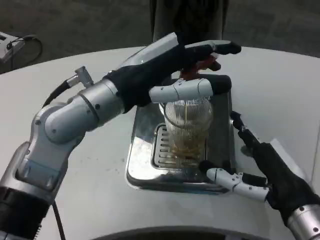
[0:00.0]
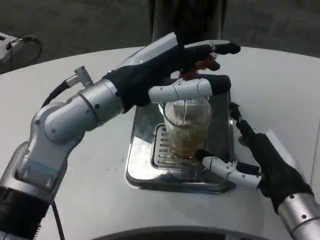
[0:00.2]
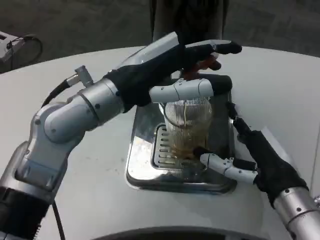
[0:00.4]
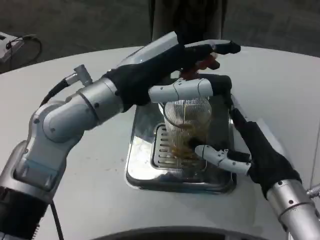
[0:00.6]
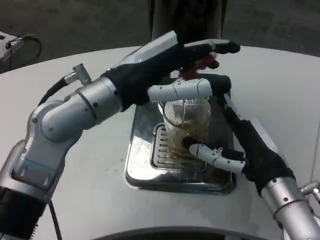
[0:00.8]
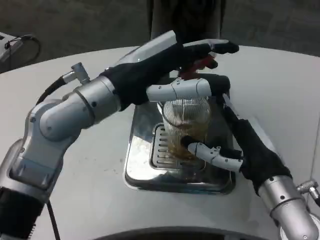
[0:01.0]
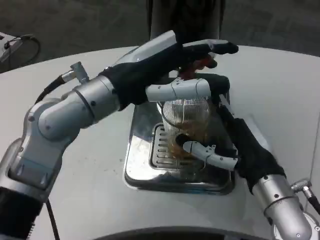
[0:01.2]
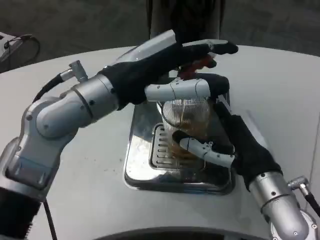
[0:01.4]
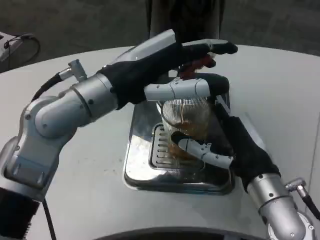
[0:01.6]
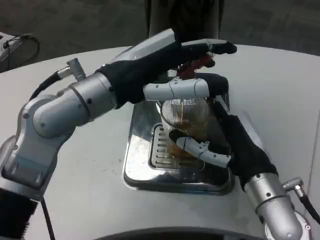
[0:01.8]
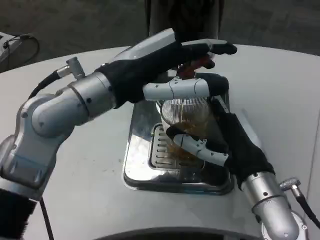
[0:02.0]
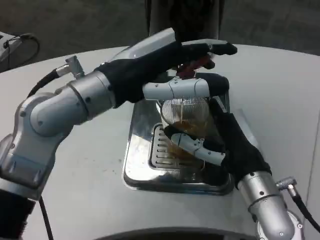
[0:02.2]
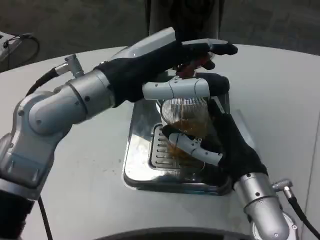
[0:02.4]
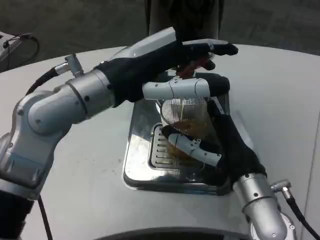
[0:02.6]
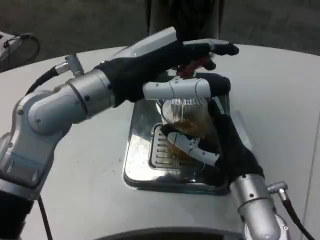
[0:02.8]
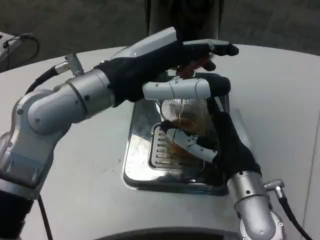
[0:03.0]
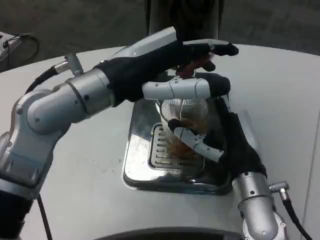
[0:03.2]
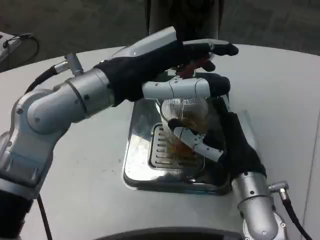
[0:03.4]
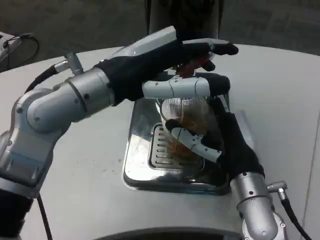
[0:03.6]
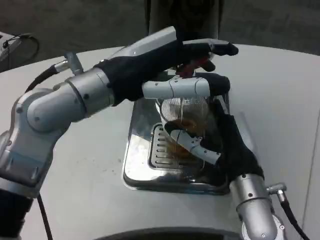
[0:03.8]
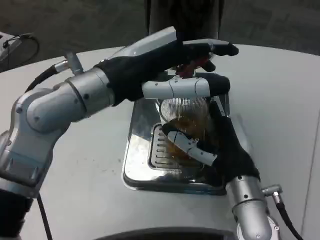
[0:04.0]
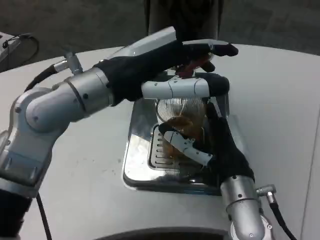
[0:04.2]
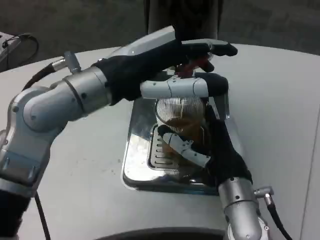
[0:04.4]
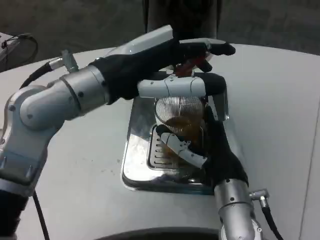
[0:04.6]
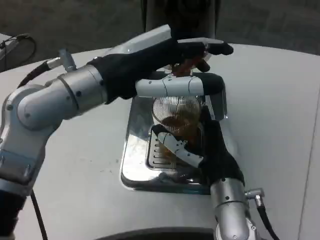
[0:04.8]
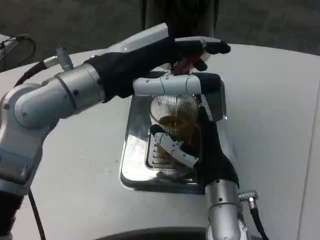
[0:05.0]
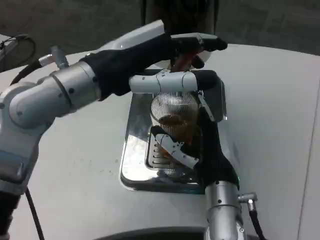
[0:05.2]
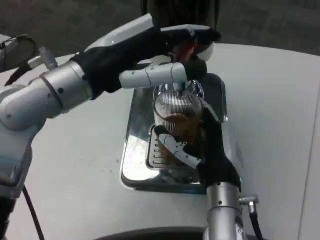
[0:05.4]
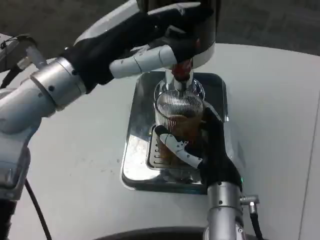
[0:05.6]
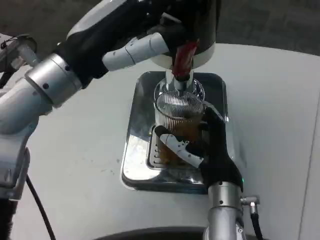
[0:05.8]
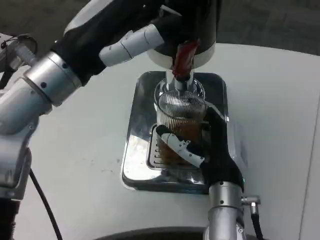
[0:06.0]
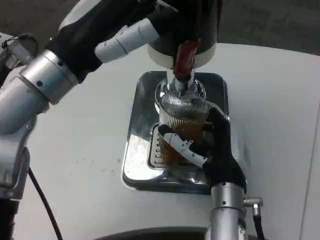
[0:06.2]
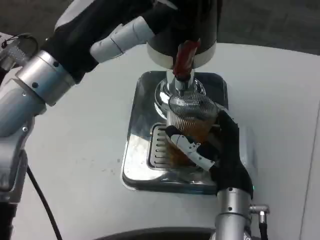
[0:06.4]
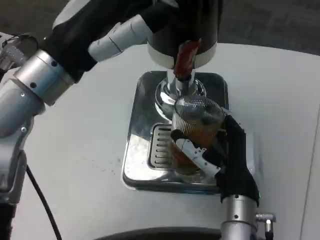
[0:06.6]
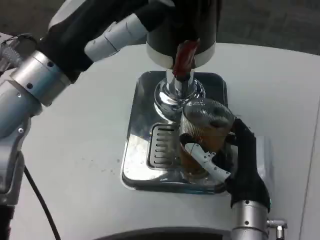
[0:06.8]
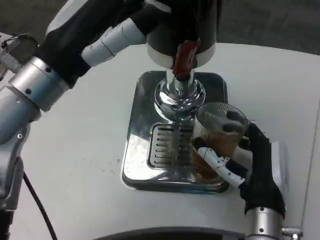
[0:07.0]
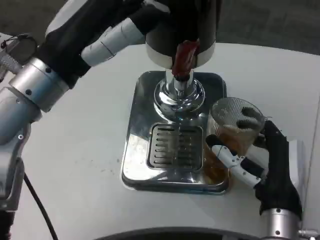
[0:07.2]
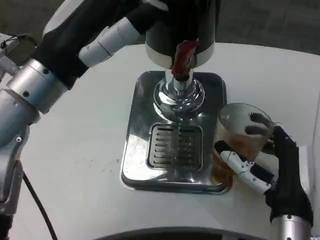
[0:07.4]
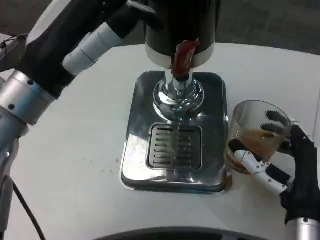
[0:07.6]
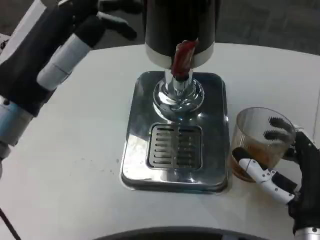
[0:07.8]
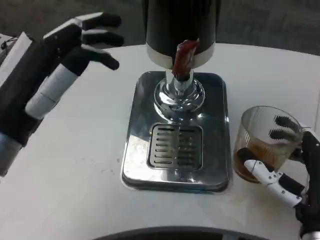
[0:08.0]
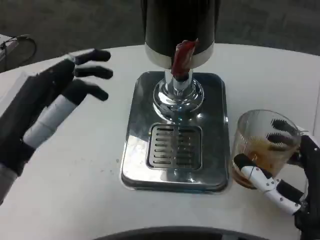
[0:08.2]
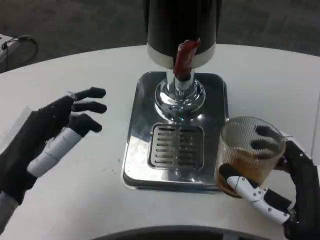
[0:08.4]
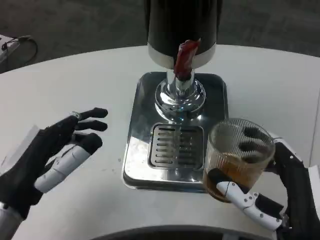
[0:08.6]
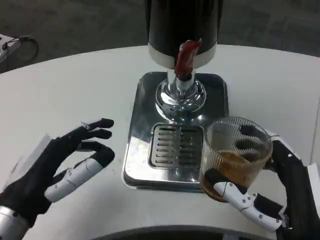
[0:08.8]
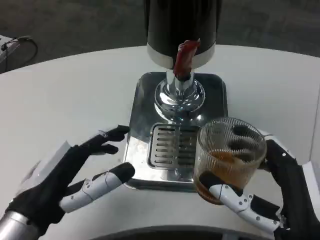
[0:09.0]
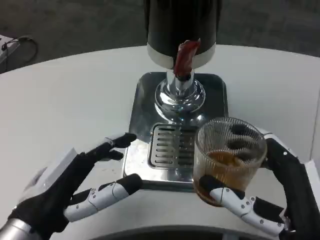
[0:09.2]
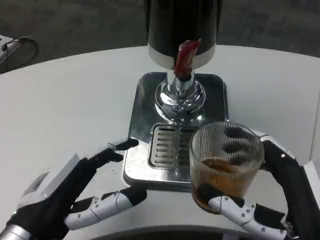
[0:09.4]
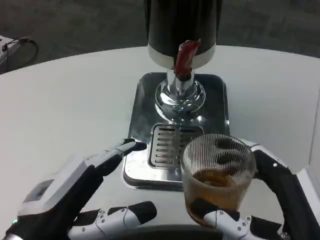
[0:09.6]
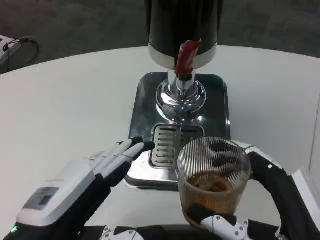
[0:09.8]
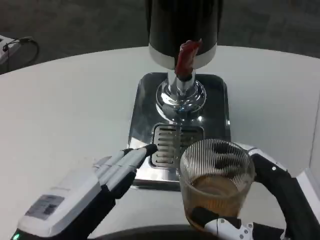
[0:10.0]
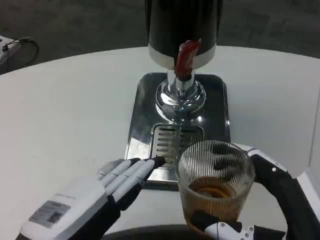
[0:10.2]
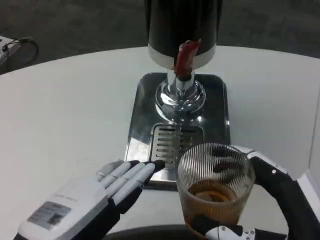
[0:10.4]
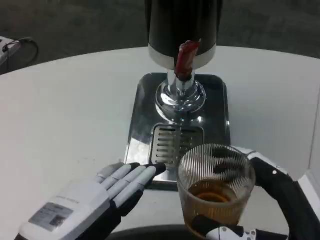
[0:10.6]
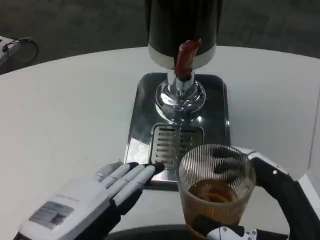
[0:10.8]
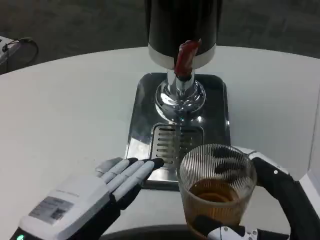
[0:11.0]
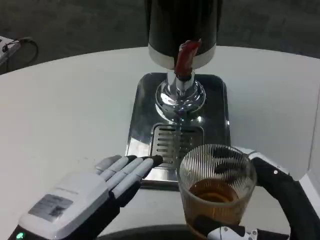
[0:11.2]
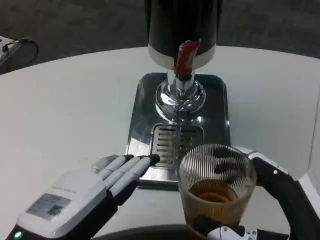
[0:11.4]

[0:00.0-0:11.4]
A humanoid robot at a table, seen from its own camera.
Task of the whole recording: Grasp the cup under the faucet to collect the drink, then remove the cup.
0:00.0 to 0:01.4: The right hand heads forward, covering roughly 5 cm.
0:02.8 to 0:04.2: The hands move only a little.
0:05.6 to 0:07.2: The right hand goes about 5 cm to the right.
0:07.2 to 0:08.6: The right hand is displaced backward by some 10 cm. Meanwhile the left hand heads downward and backward, covering roughly 15 cm.
0:08.6 to 0:10.0: The left hand shifts approximately 5 cm backward.
0:10.0 to 0:11.4: There are only small adjustments of the hands.

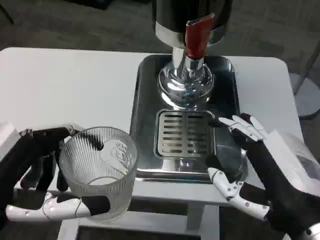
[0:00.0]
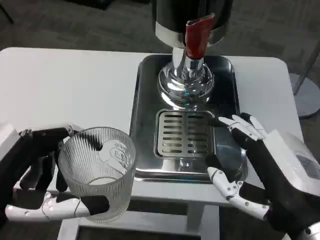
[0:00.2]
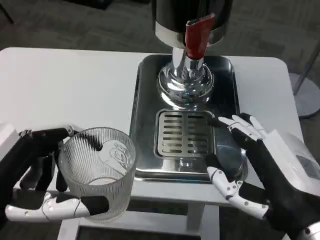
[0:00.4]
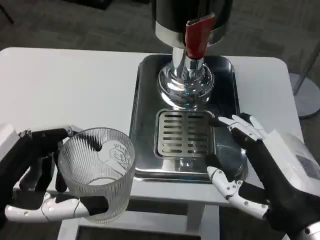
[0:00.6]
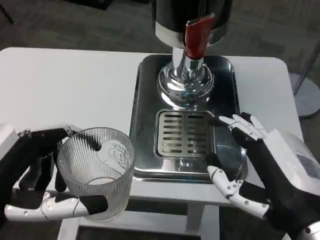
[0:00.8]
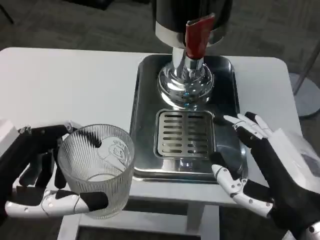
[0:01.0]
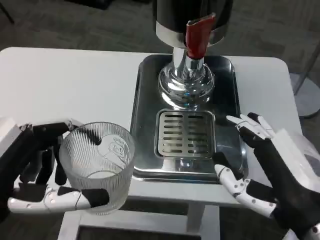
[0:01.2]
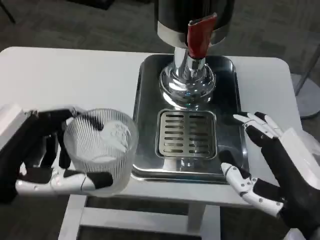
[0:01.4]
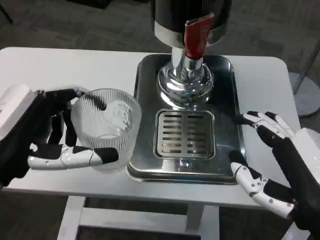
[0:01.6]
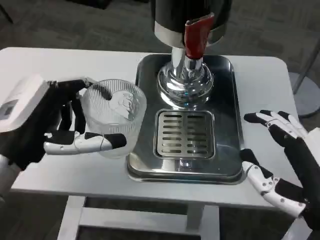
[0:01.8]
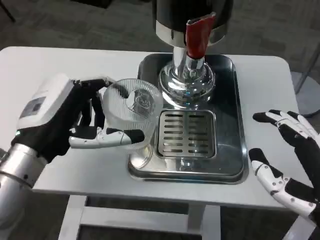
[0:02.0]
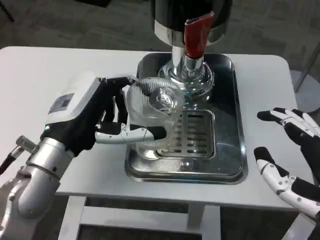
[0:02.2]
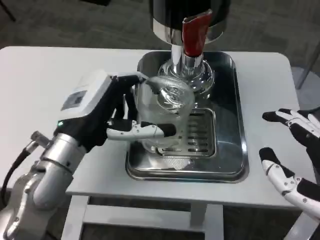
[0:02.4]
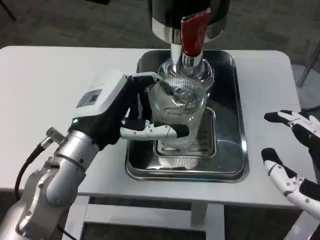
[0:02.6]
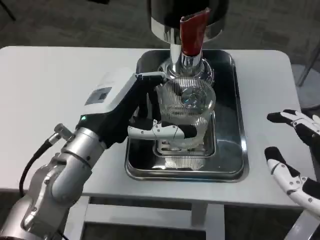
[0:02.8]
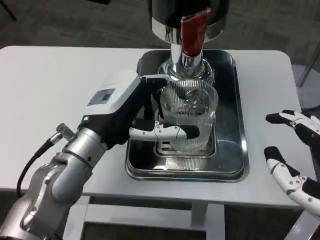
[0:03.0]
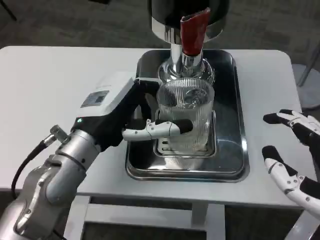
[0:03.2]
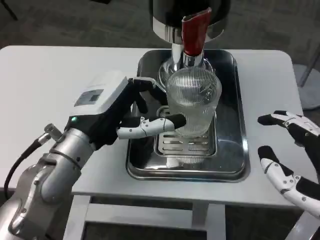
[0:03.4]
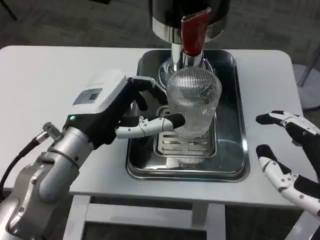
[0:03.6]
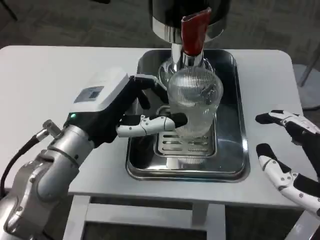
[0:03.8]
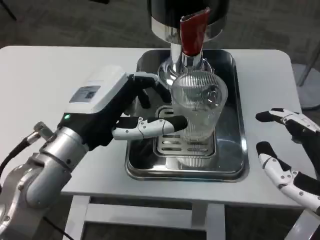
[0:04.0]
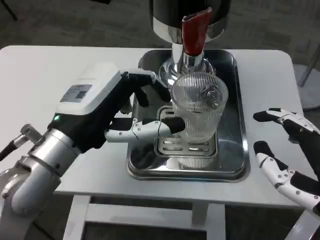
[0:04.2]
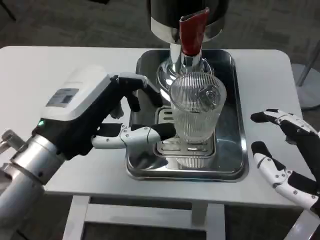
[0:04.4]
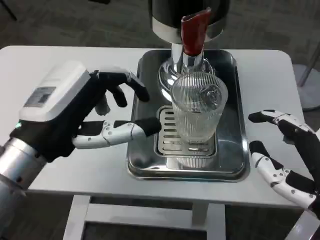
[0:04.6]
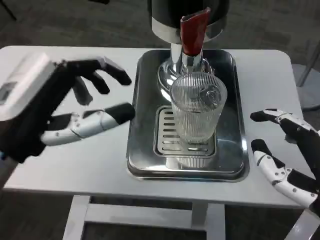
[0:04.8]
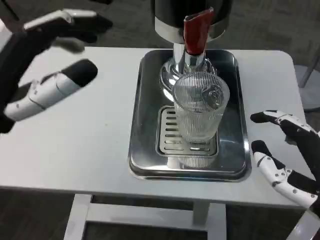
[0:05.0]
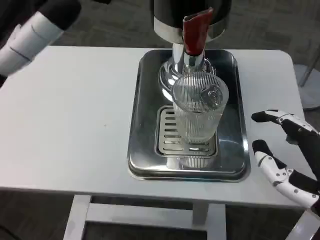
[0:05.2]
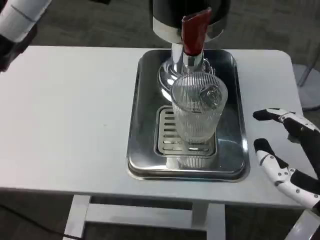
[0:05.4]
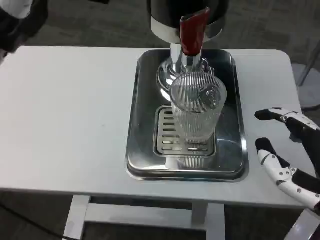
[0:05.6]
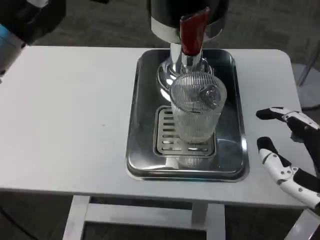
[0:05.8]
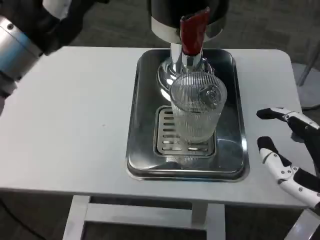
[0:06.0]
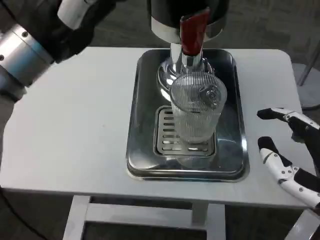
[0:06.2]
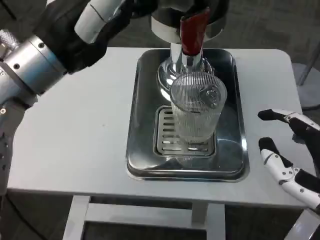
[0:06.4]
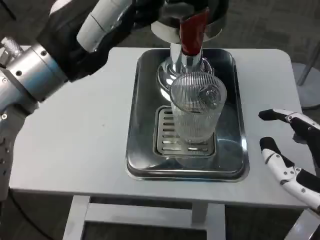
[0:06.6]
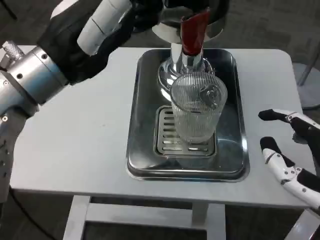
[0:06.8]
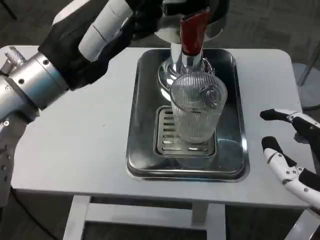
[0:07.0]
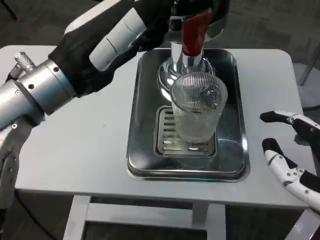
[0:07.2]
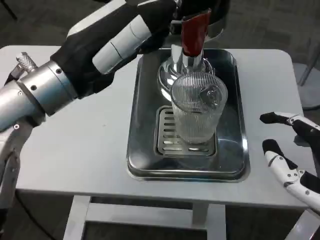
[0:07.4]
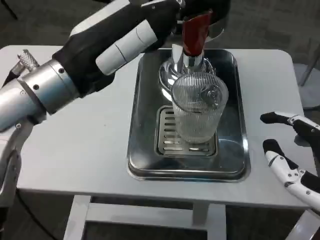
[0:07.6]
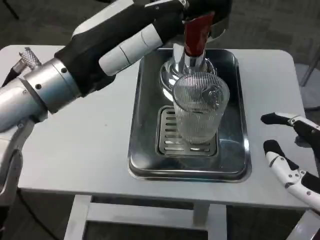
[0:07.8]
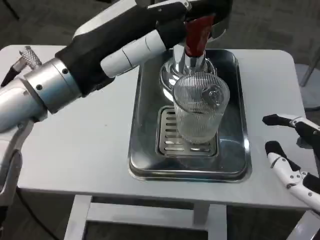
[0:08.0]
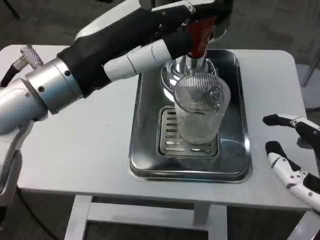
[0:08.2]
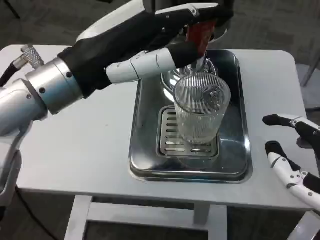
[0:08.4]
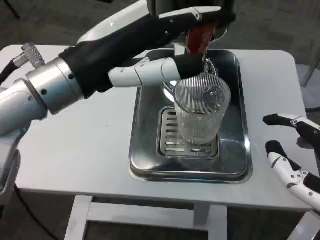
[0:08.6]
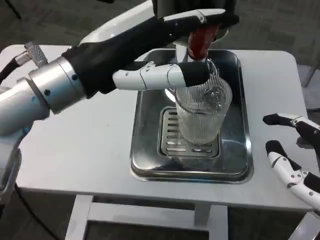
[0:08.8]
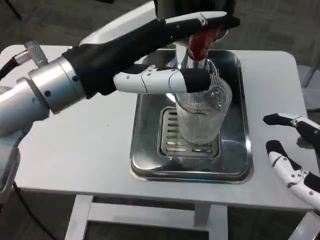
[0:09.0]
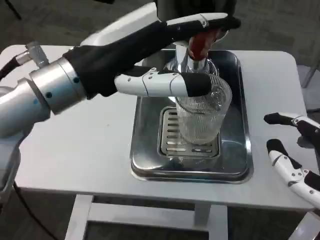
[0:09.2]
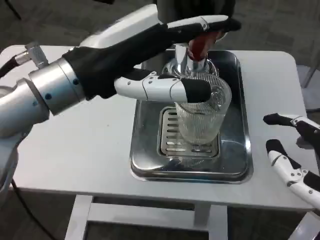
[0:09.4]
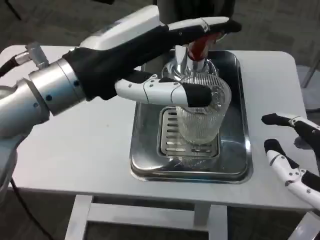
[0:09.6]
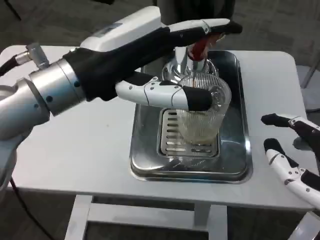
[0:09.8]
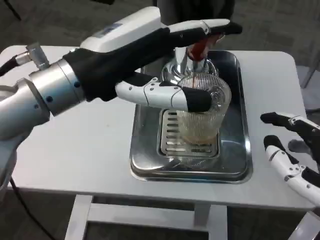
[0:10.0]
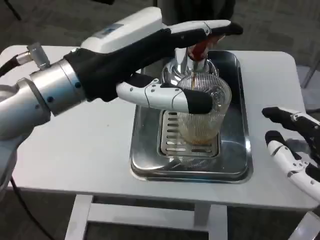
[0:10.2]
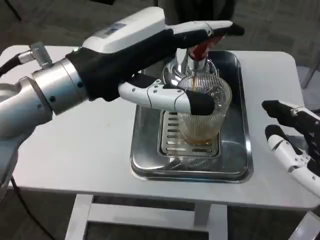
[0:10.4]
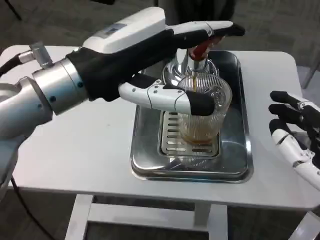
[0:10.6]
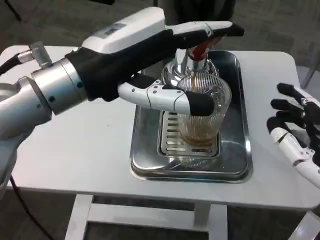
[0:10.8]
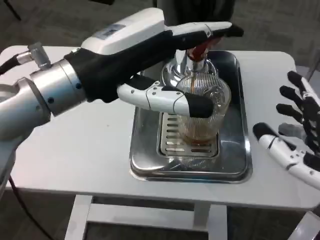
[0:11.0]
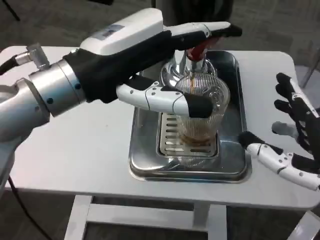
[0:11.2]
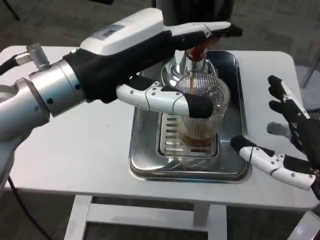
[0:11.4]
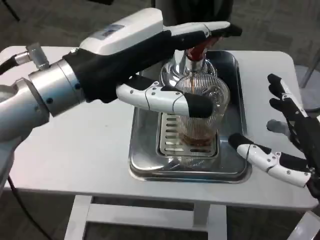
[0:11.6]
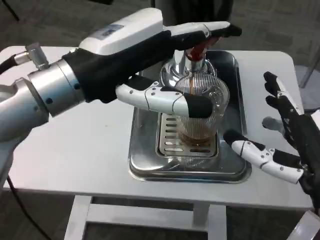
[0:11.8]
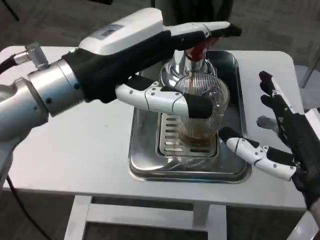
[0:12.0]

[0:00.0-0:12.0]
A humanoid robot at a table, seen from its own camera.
Task of the whole recording: Grasp the cup under the faucet to collect the drink, then remove the cup.
0:00.0 to 0:01.6: The left hand goes about 5 cm forward.
0:01.6 to 0:03.0: The left hand heads to the right and forward, covering about 15 cm.
0:03.0 to 0:04.4: The left hand travels backward by about 5 cm.
0:04.4 to 0:06.0: The left hand shifts approximately 10 cm upward.
